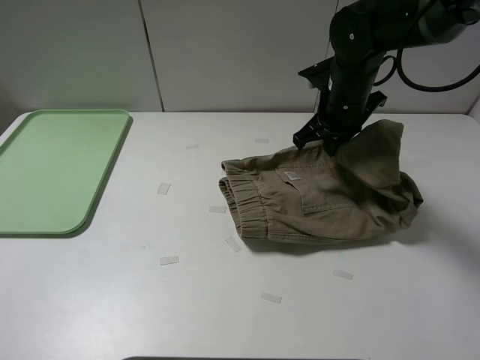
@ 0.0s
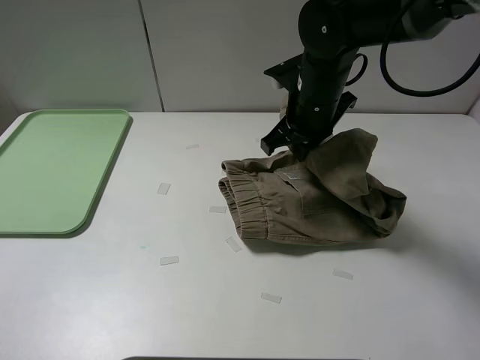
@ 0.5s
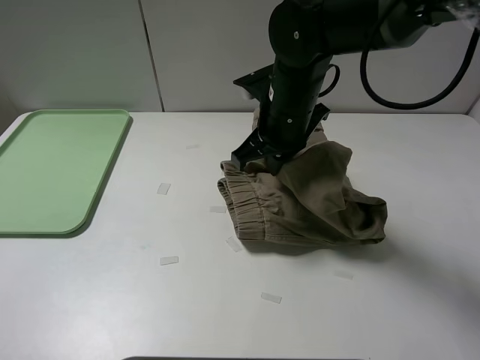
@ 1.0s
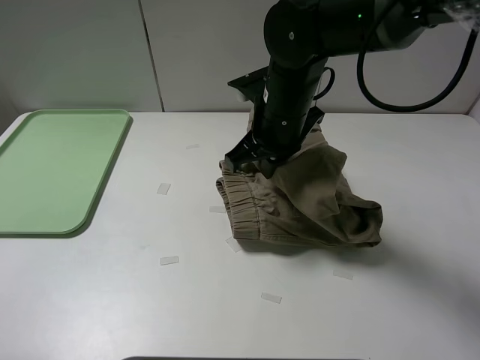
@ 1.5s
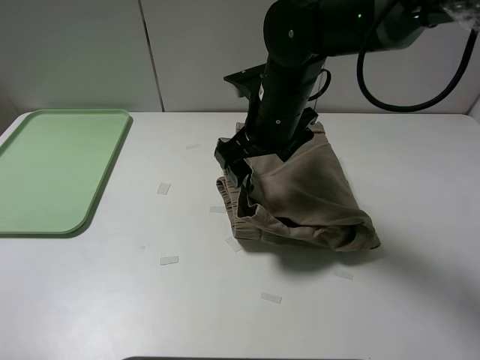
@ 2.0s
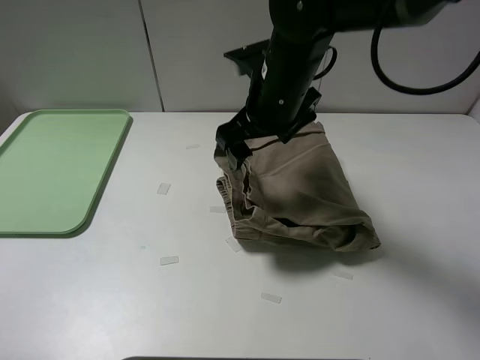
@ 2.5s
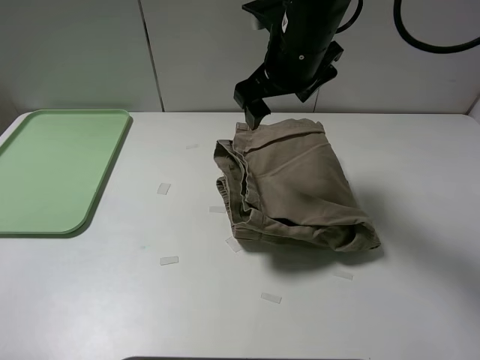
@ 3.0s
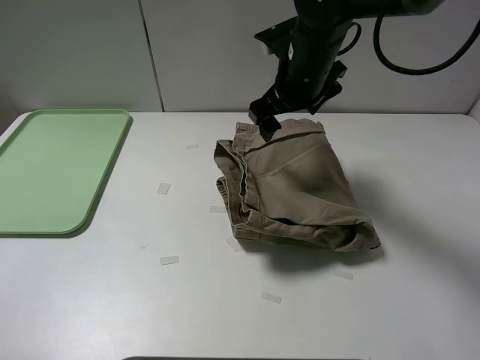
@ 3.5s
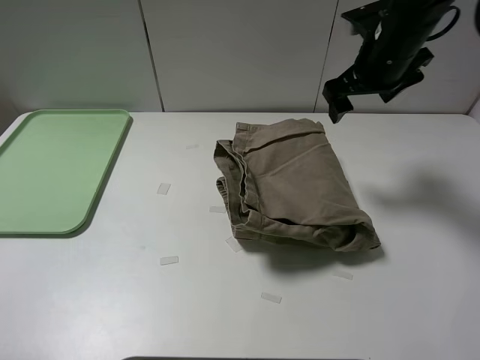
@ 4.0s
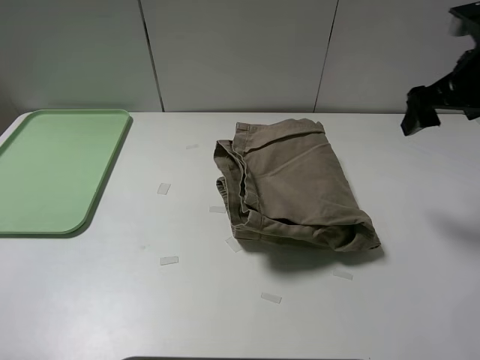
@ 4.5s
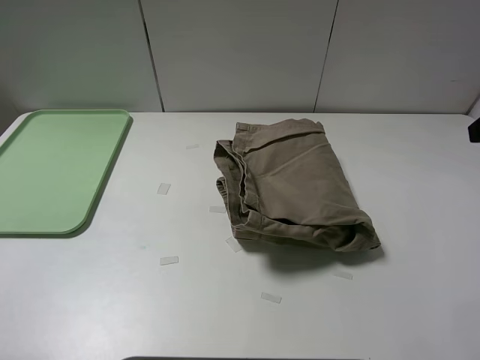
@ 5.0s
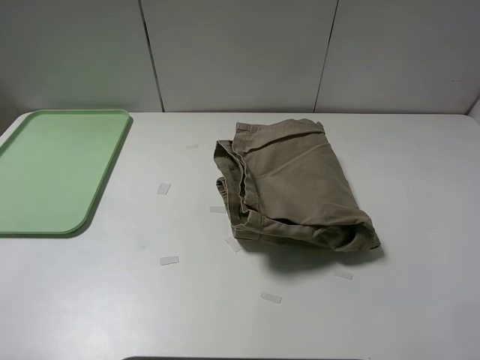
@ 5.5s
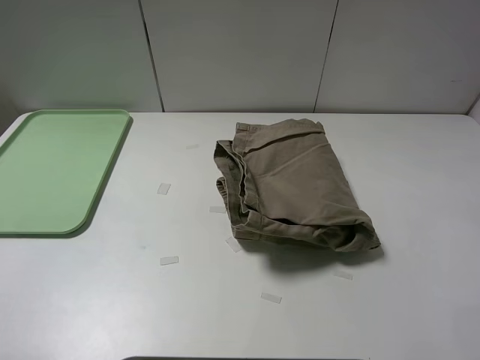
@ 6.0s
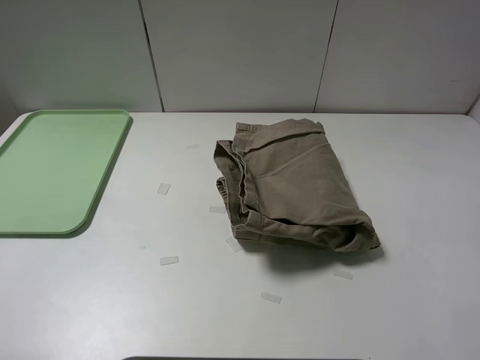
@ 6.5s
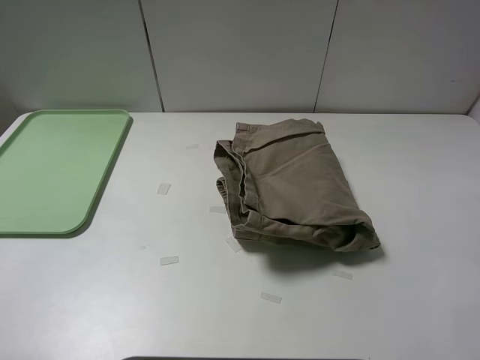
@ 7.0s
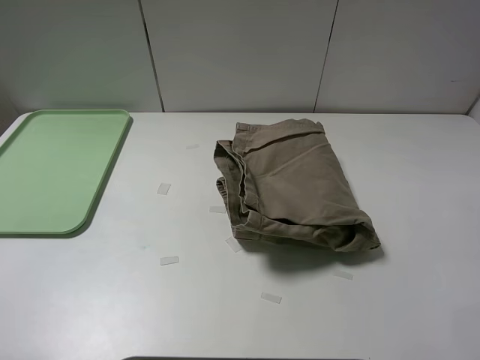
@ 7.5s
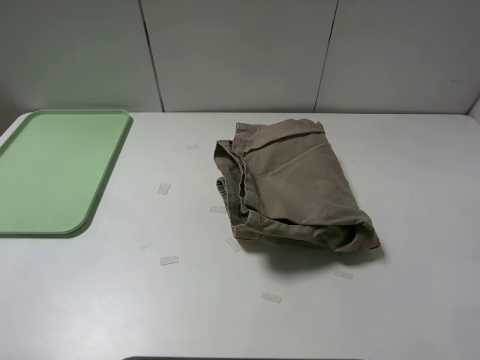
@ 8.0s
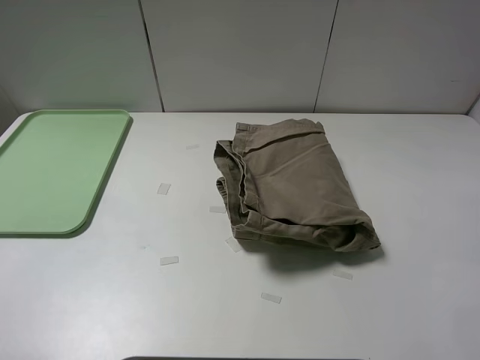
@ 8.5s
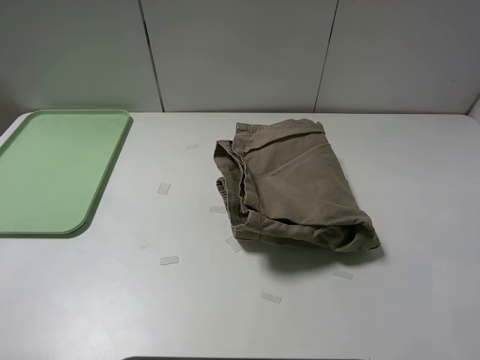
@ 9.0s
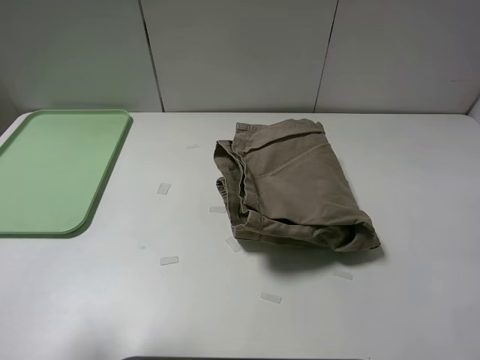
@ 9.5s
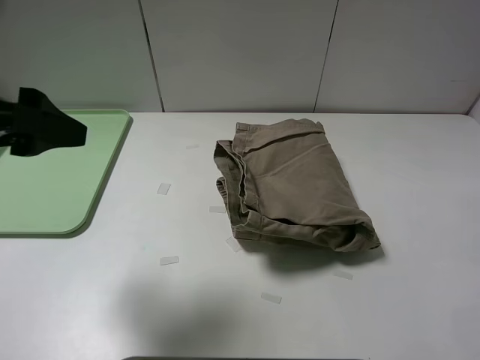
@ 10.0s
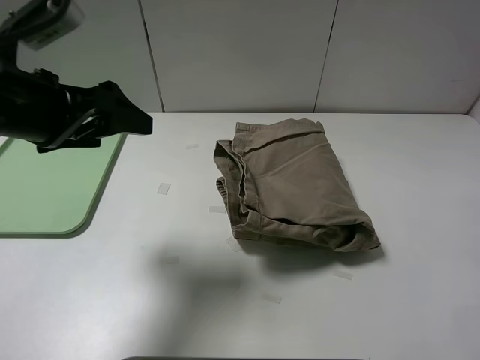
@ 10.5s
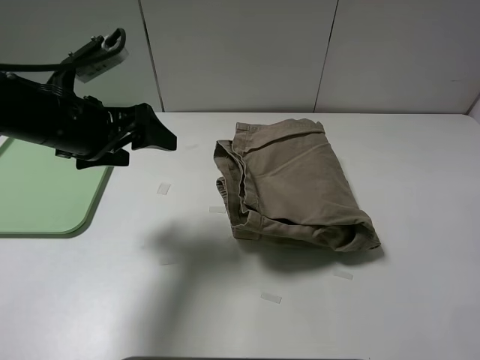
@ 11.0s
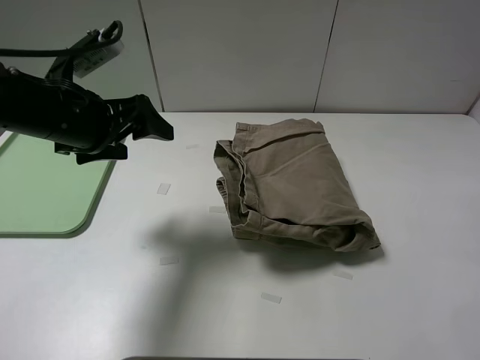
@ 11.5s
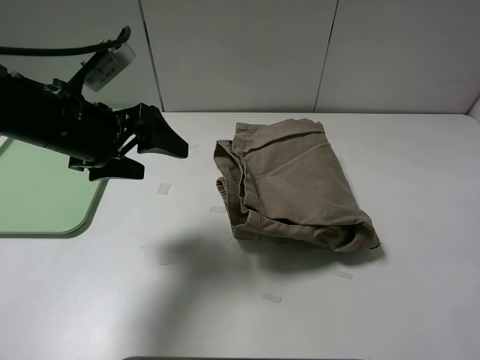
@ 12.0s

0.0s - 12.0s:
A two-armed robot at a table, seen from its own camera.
Task of the whole recording: fold the khaki jeans in half with two grippers, then fold them in half again, and use the left claw to place the folded fold khaki jeans on the tray.
Step, 0.0s - 2.5s: Fold the khaki trousers from right to left with the right gripper.
0.0s - 2.0s: The right gripper heads to the left and backward, covering about 10 cm, and opens.
2.0s - 4.0s: The right gripper shifts some 15 cm to the right and forward.
4.0s - 6.0s: The right gripper heads backward, covering roughly 35 cm.
8.0s - 10.0s: The left gripper shifts about 20 cm forward and to the right.
10.0s - 12.0s: The left gripper moves downward and forward, approximately 15 cm.

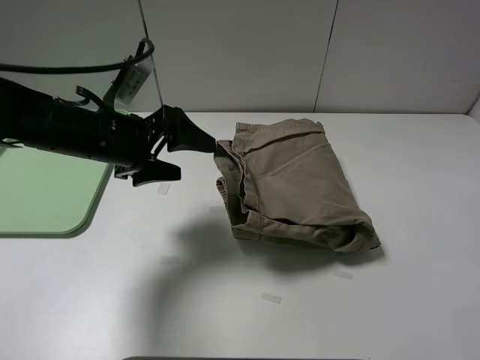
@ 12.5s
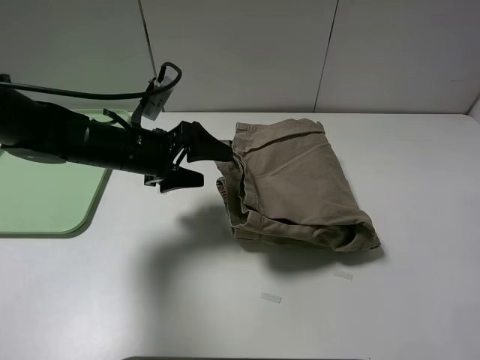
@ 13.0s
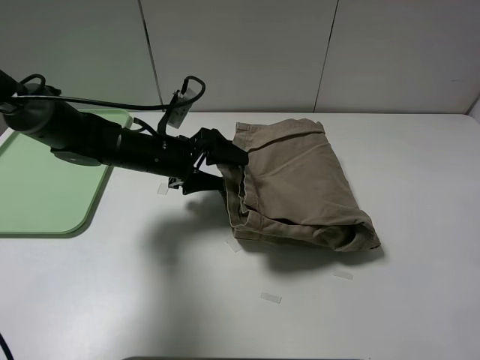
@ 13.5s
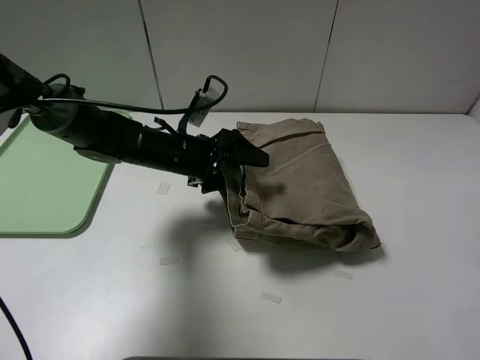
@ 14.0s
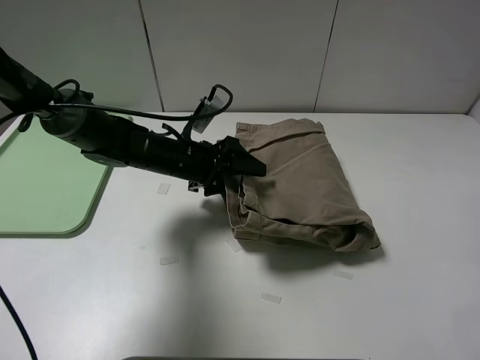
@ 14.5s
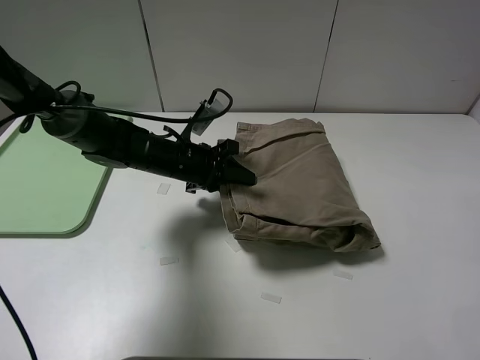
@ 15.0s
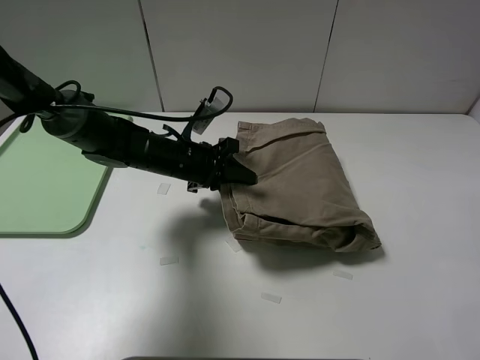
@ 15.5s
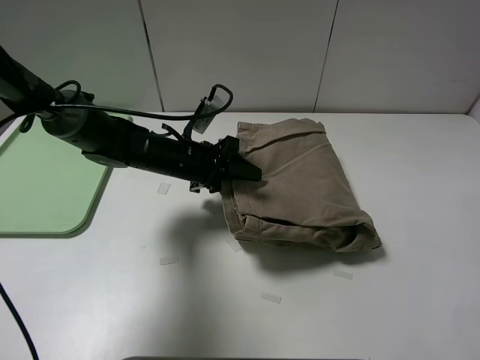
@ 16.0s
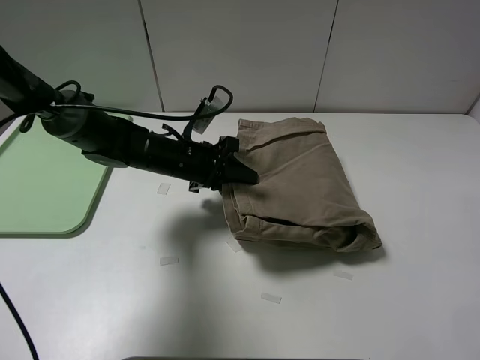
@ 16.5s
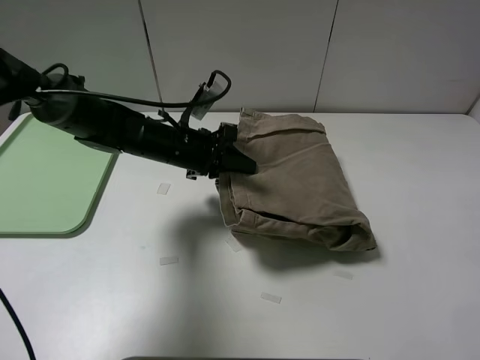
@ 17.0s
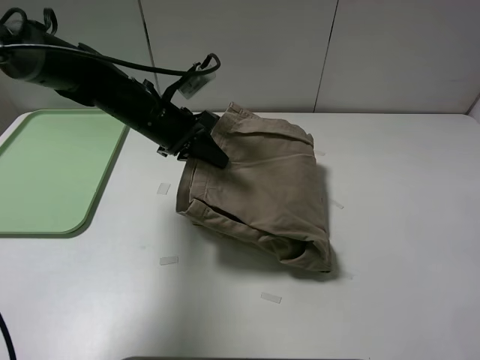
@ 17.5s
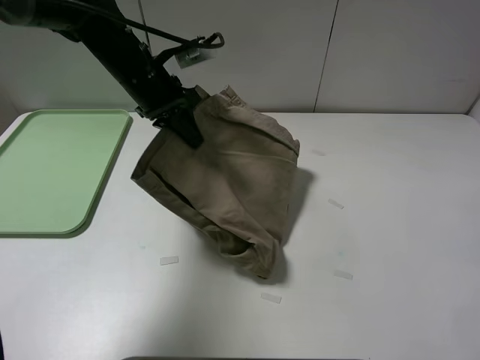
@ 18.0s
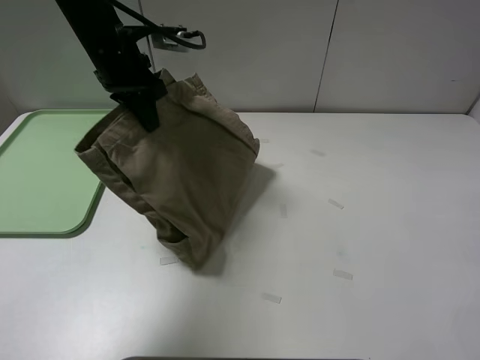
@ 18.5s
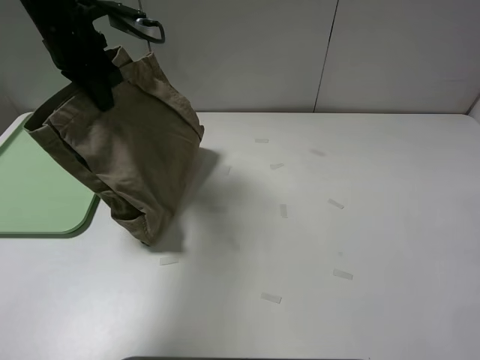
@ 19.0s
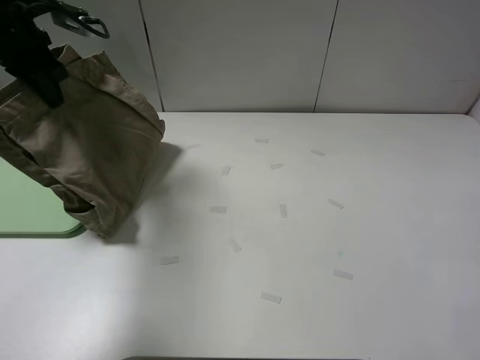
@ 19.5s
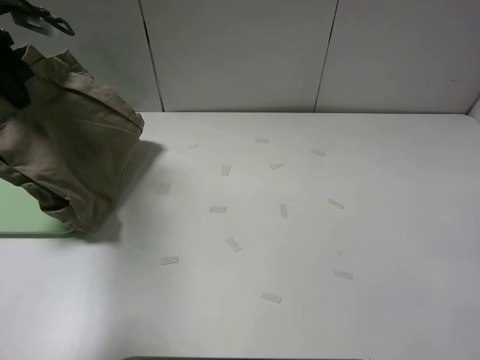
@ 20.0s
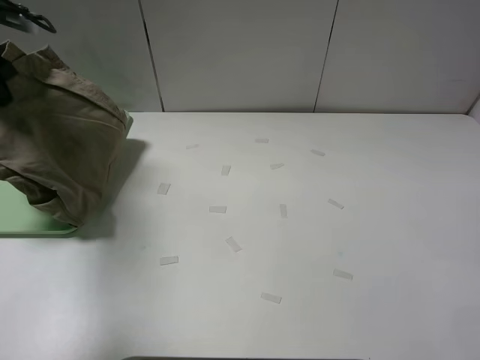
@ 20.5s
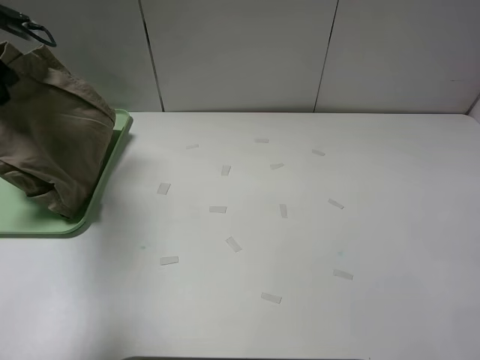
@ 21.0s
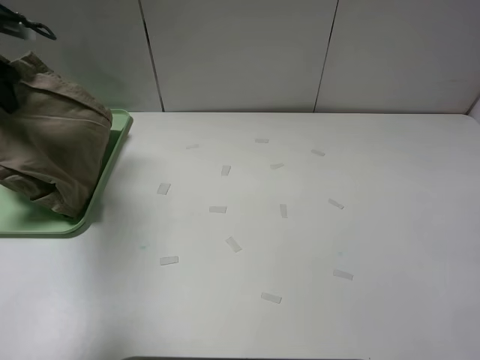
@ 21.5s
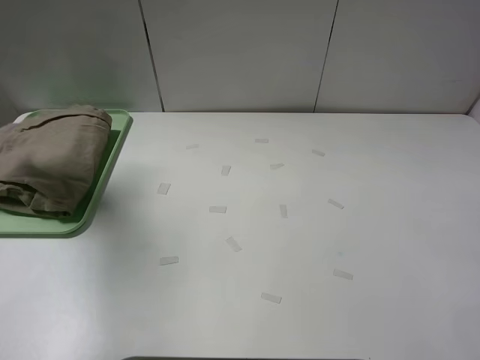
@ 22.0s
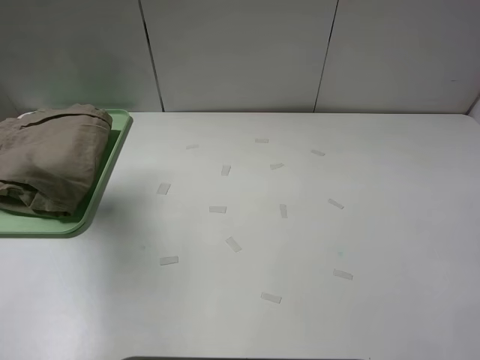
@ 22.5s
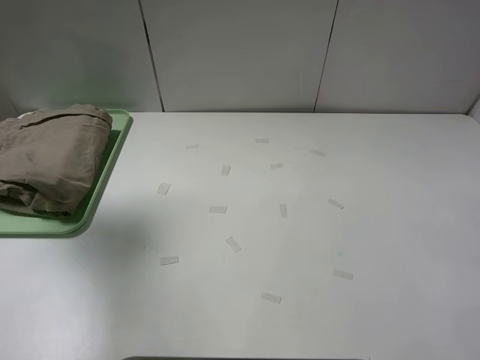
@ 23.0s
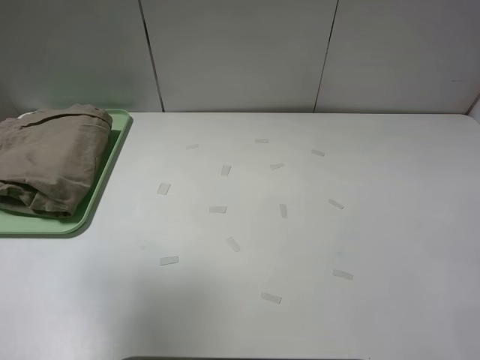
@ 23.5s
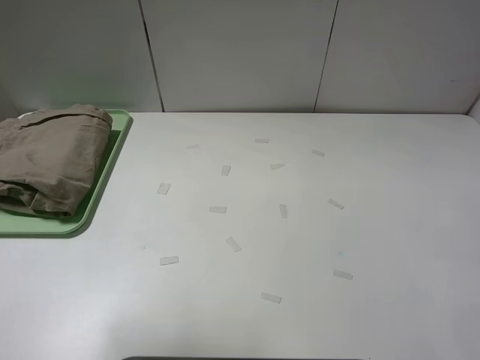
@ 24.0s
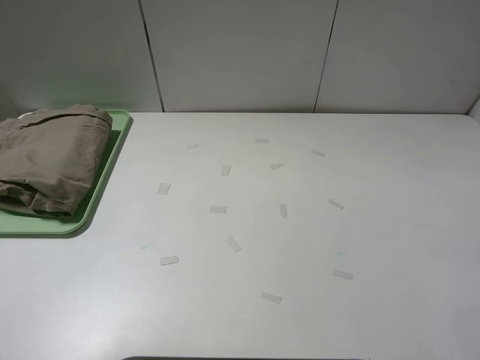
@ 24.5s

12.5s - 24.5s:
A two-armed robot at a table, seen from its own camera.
Task of the whole recording: fold the khaki jeans in half with two grippers, then fold them in half again, and use the left claw to place the folded fold khaki jeans on the tray.
Step, 12.5s - 16.5s: Grasp the khaki trousers with the left gripper.
Step, 17.0s - 21.5s: Place the folded khaki trousers on the green tray with the left gripper.
12.5s - 14.5s: The left gripper is displaced downward, to the right and forward by about 15 cm.
14.5s - 16.5s: The left gripper closes up.
16.5s - 18.5s: The left gripper travels upward and to the left by about 20 cm.
18.5s - 20.5s: The left gripper goes roughly 20 cm to the left.
20.5s - 22.5s: The left gripper shifts approximately 5 cm upward, and opens its fingers.
22.5s - 24.5s: The left gripper heads backward, covering roughly 30 cm.

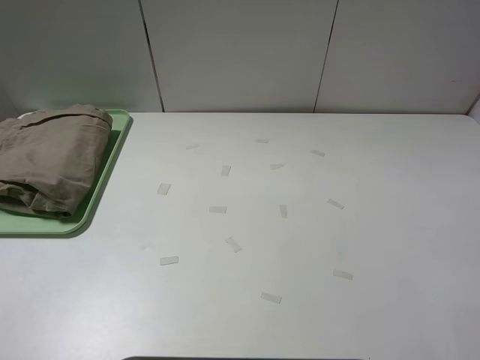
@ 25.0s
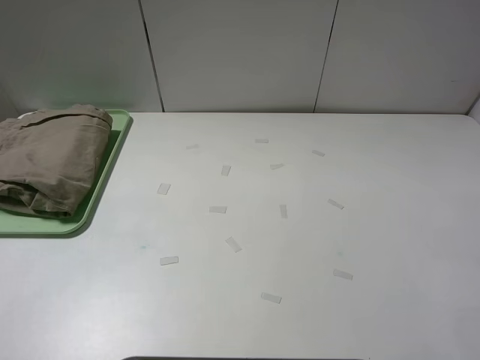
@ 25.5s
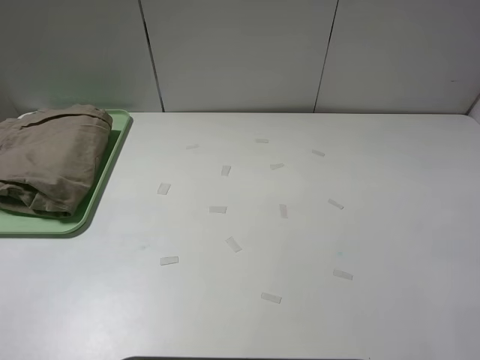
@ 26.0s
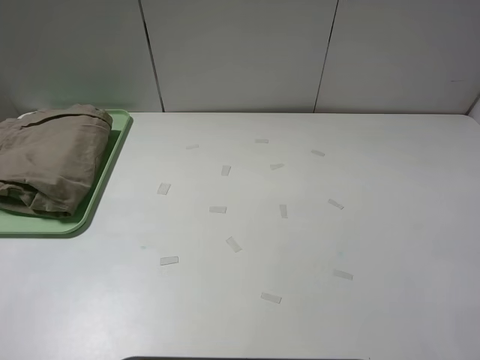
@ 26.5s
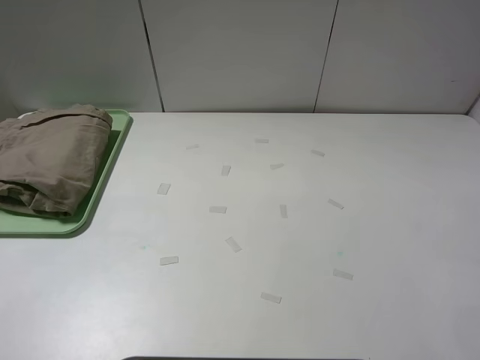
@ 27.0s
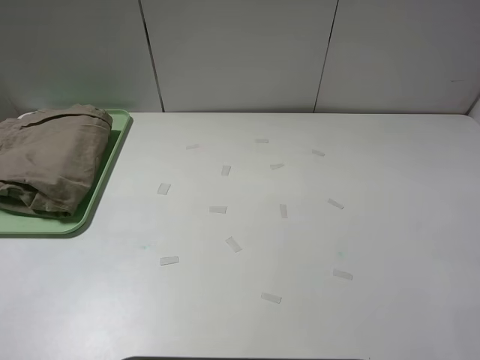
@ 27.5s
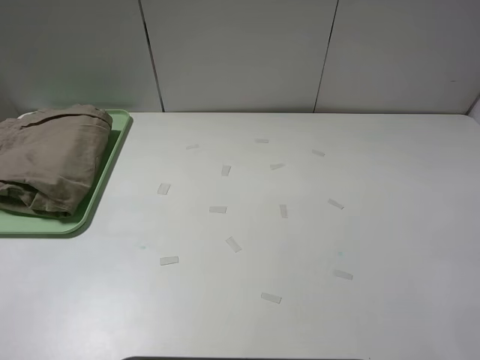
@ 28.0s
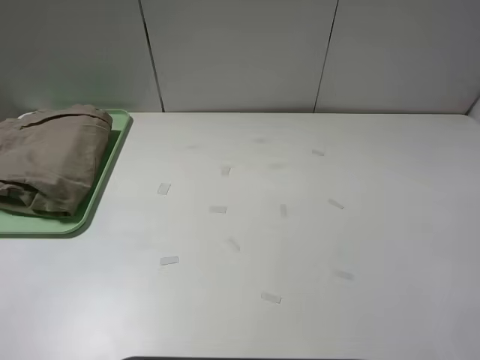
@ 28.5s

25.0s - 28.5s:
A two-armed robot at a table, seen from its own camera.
Task of the whole recording: fold the khaki jeans in half with two grippers, then fold them in half again, and use the left claw to place the folded fold khaki jeans on the tray.
27.0s - 28.5s: Neither gripper changes place.
